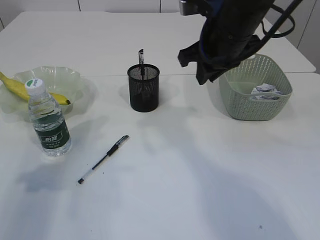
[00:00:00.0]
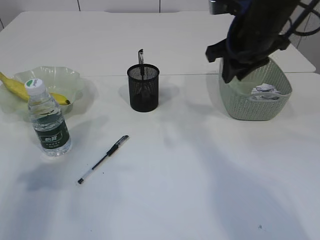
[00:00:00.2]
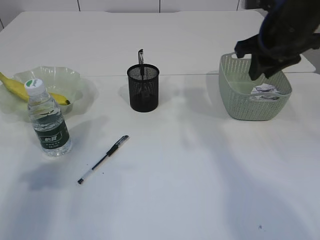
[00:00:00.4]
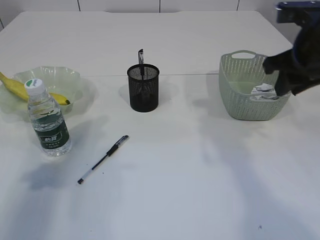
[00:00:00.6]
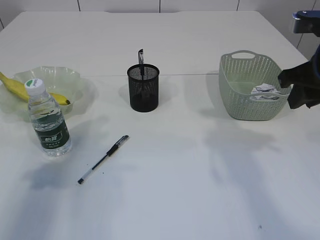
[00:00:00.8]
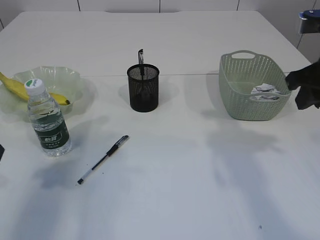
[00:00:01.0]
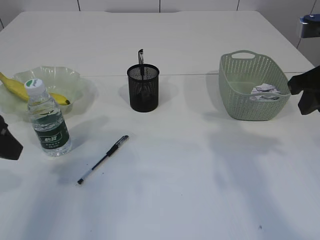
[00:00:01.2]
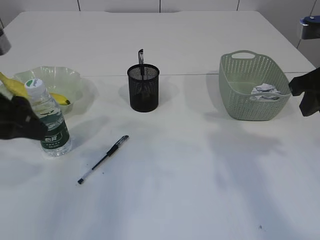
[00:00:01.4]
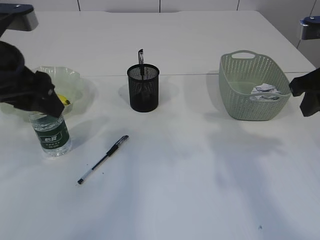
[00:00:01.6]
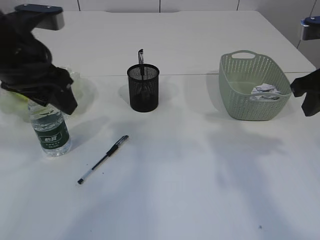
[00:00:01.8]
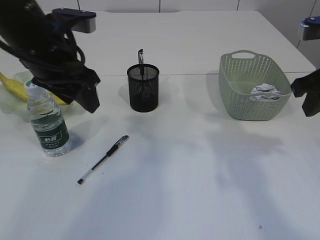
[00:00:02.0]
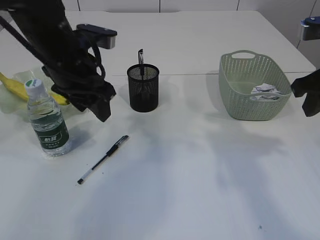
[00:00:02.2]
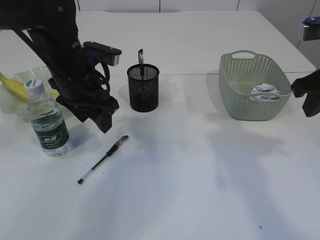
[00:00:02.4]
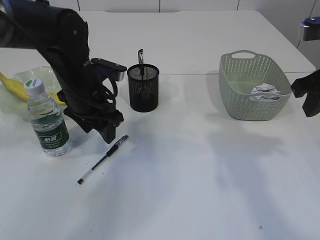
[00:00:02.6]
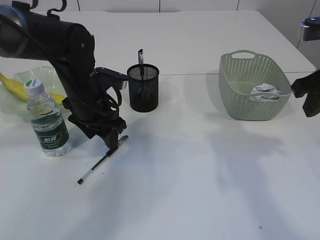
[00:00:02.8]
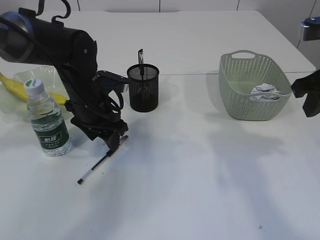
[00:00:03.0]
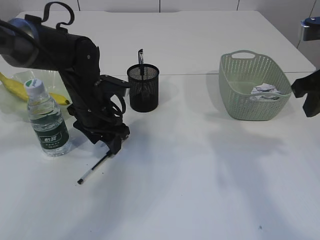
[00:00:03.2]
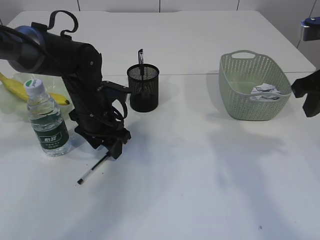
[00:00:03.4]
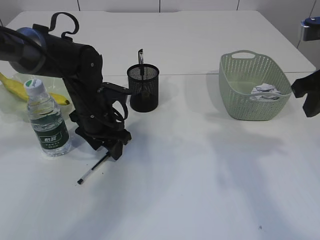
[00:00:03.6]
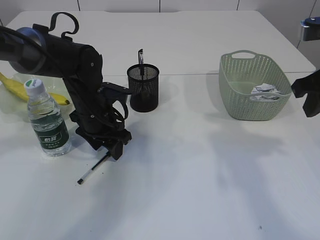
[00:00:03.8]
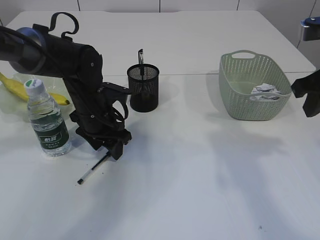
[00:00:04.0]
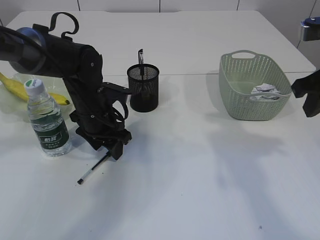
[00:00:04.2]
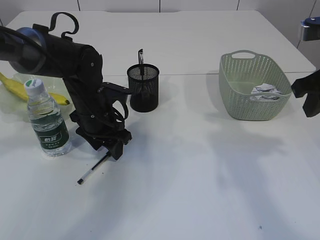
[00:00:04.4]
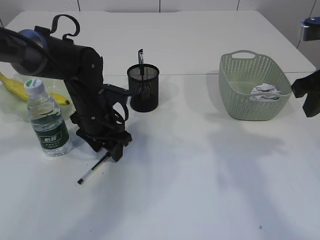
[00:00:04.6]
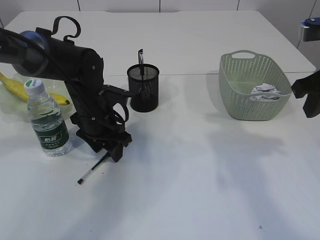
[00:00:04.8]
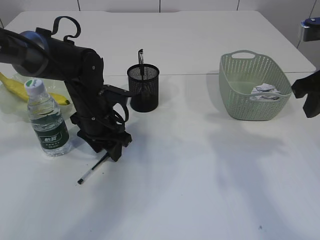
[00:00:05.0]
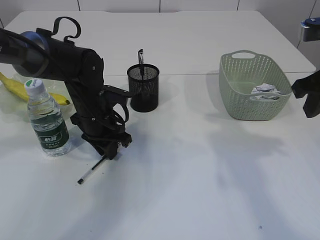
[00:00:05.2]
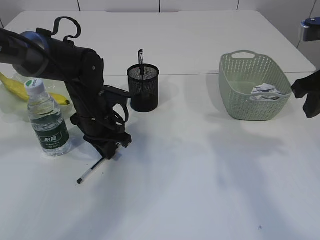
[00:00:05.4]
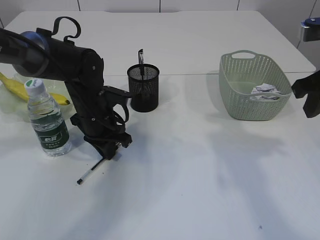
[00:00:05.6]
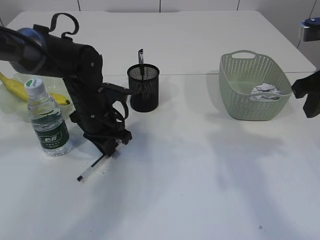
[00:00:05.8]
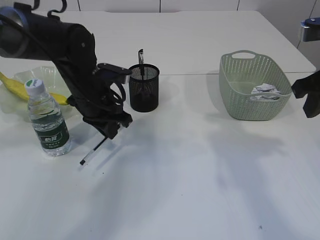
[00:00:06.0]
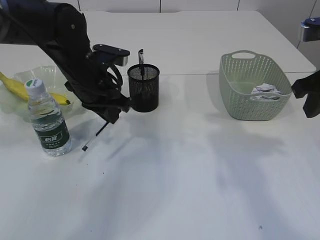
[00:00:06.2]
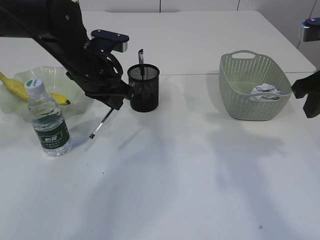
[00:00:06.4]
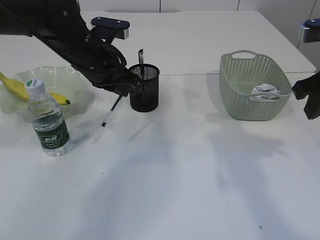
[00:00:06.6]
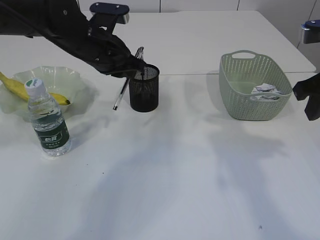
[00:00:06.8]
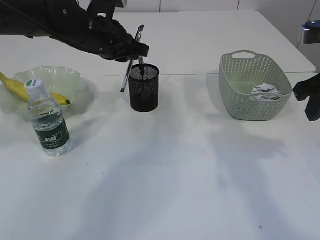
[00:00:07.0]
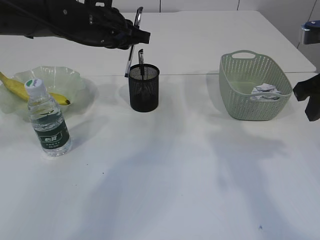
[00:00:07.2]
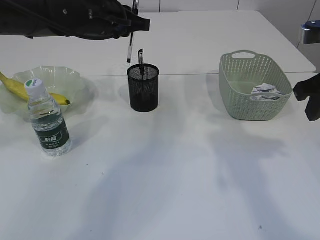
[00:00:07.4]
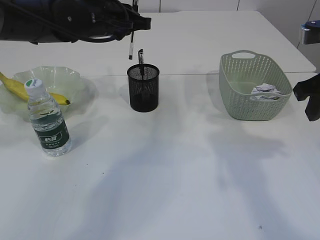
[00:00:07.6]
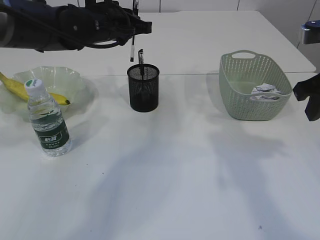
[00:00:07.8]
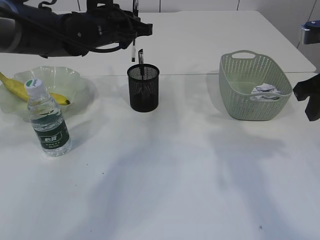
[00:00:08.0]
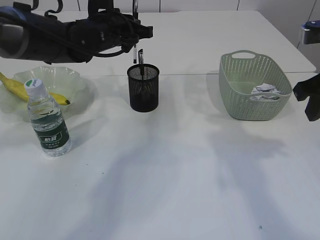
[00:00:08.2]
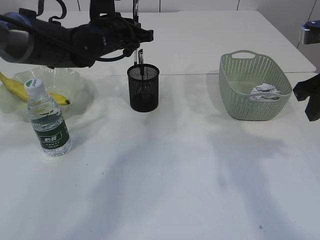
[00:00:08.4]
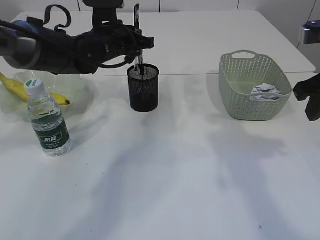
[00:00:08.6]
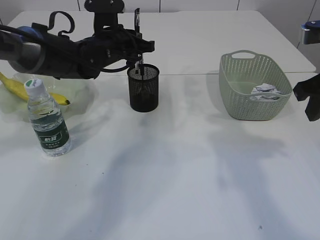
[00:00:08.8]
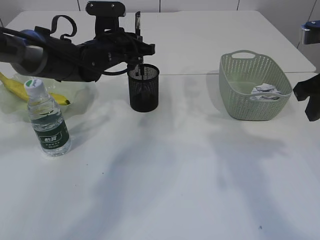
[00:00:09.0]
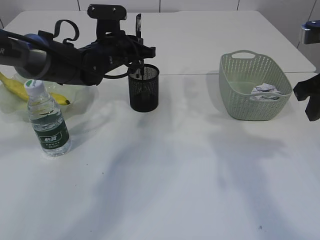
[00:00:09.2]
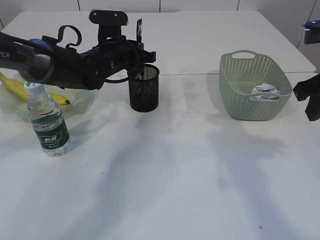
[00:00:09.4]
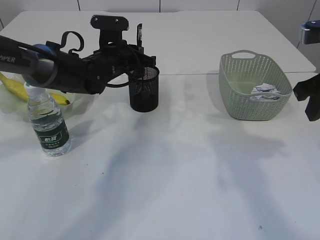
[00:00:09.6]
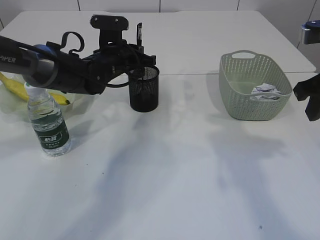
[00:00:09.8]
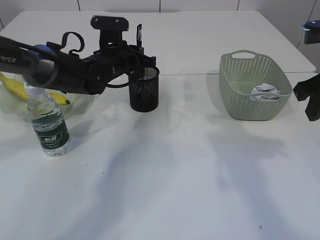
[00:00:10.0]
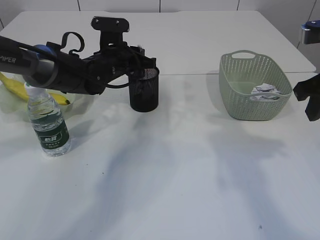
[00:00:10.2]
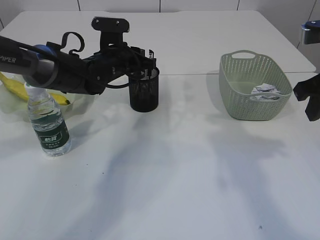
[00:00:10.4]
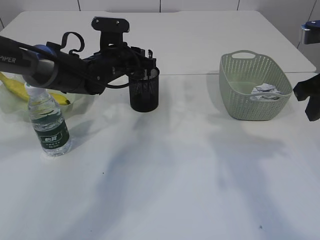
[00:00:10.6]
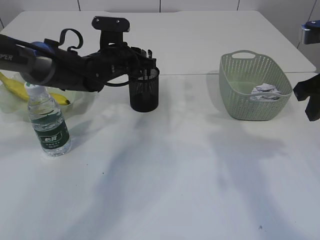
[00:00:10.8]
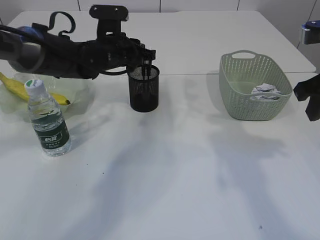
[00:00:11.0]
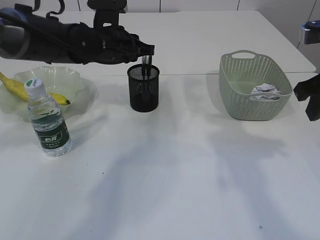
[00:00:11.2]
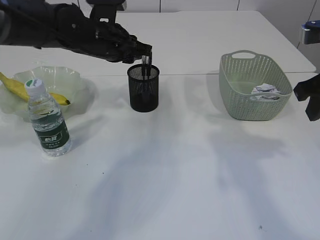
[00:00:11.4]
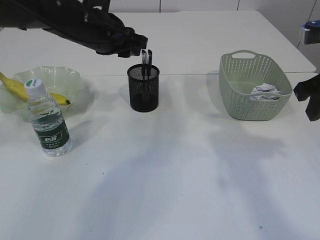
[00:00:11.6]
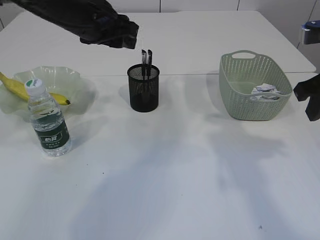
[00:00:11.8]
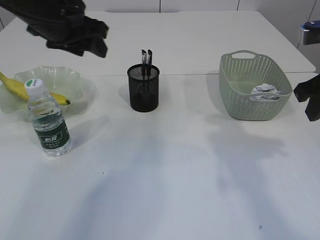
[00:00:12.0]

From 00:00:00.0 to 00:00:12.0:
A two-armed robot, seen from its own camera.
Step, from 00:00:00.0 to 00:00:06.4: Pick up the pen with left arm.
Step, from 00:00:06.6 to 00:00:11.6: Place the pen into the pen holder.
From 00:00:00.0 to 00:00:01.6: The left gripper moves to the right, about 10 cm. Meanwhile the right gripper goes roughly 15 cm to the right and backward.
From 00:00:01.6 to 00:00:03.0: The left gripper travels downward, forward and to the right by about 20 cm.
From 00:00:03.0 to 00:00:04.4: The grippers stay close to where they were, moving slightly.
From 00:00:04.4 to 00:00:06.0: The left gripper closes up.
From 00:00:06.0 to 00:00:07.6: The left gripper goes some 10 cm upward.
From 00:00:07.6 to 00:00:09.0: The left gripper moves downward, roughly 5 cm.
From 00:00:09.0 to 00:00:10.4: The grippers make only small movements.
From 00:00:10.4 to 00:00:12.0: The left gripper shifts approximately 15 cm upward, backward and to the left, and opens.

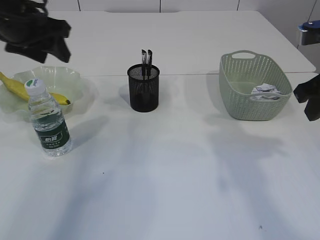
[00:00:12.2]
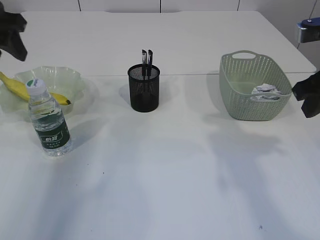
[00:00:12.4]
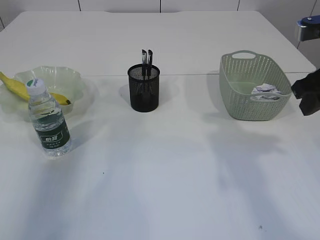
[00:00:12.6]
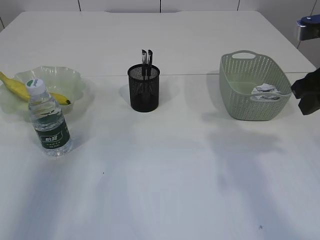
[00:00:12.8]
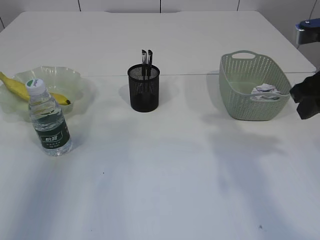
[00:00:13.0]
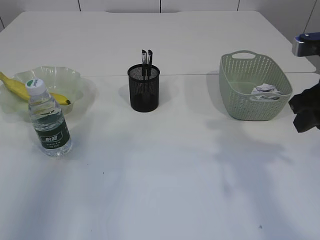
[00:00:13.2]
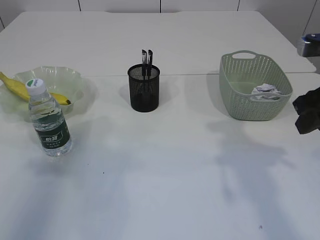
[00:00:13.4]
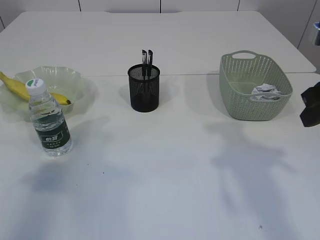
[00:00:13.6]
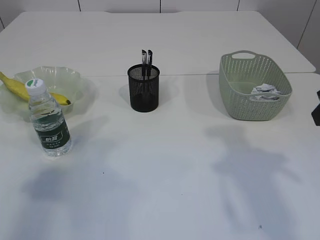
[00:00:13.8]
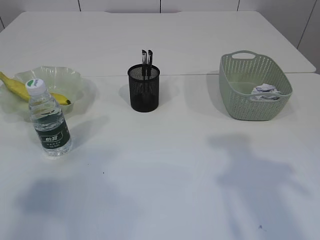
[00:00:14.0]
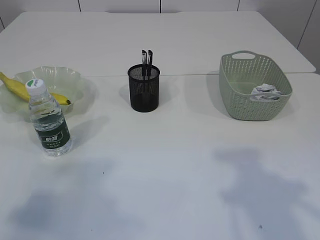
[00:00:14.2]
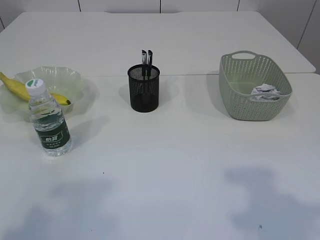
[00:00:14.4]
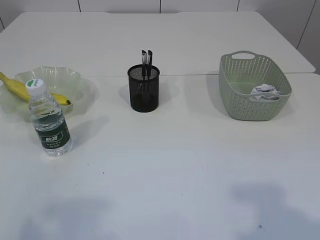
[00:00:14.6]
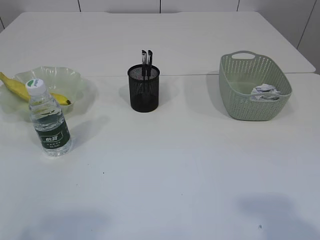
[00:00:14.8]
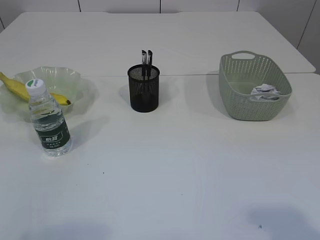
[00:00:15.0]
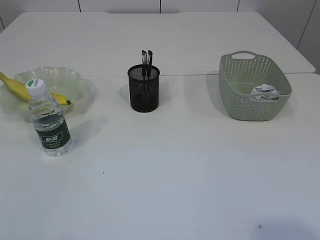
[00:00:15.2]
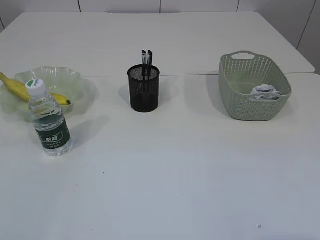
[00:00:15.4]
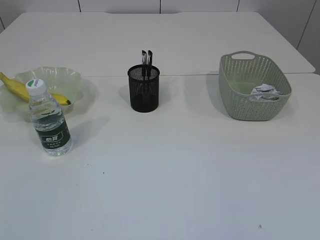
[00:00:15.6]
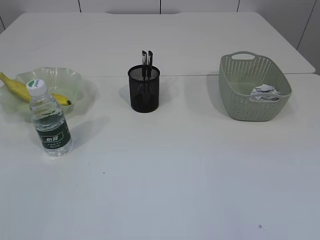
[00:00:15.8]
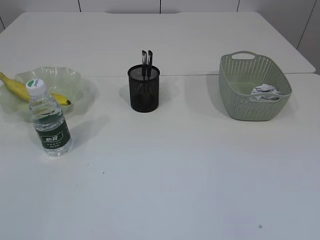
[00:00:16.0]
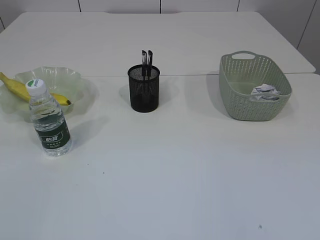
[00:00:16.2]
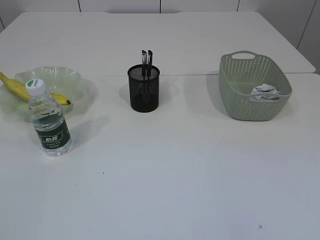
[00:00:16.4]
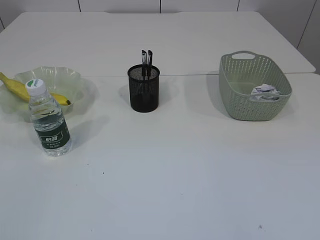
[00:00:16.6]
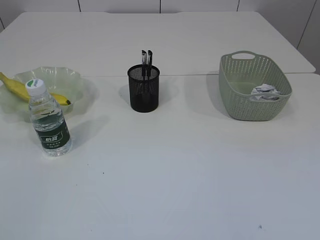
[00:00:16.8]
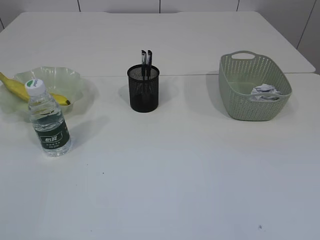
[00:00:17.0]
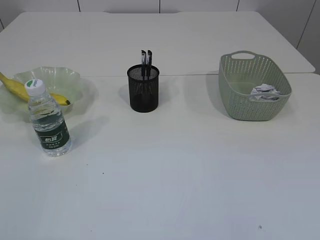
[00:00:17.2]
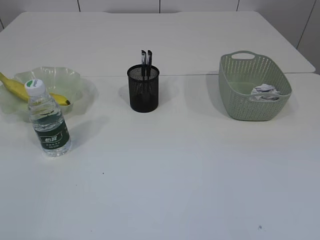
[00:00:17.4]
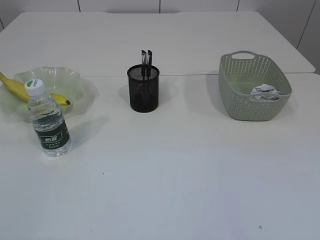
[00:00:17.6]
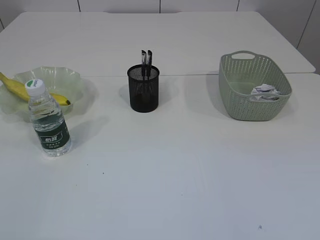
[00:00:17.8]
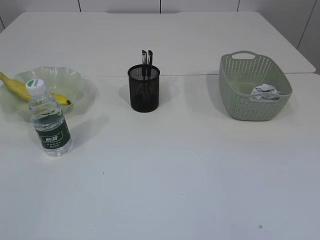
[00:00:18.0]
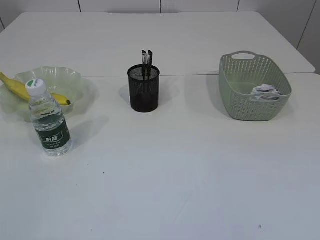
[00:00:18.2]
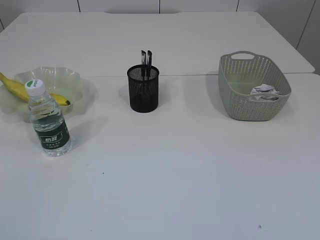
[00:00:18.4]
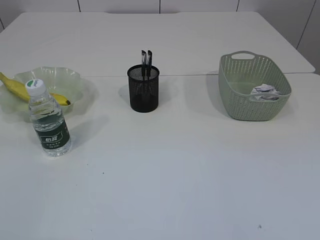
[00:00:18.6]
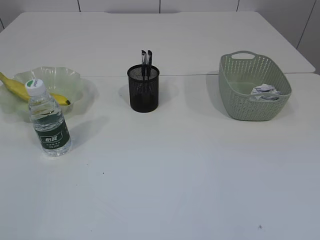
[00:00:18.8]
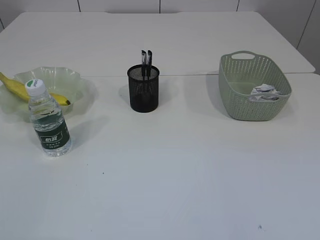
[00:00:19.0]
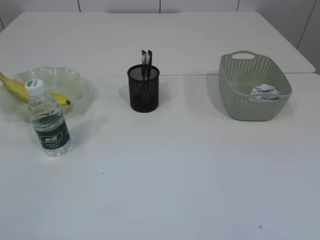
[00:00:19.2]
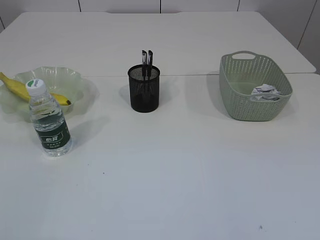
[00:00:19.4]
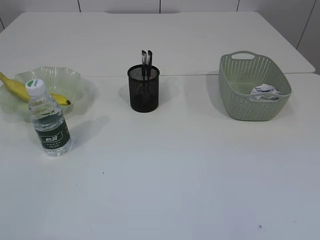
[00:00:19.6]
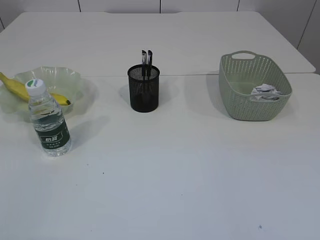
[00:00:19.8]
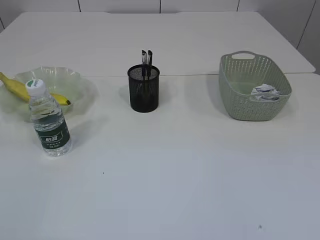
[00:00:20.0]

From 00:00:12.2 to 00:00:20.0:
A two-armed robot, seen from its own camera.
From 00:00:12.2 to 00:00:13.8: The right gripper heads backward, covering approximately 5 cm. Meanwhile the left gripper travels backward and to the left by some 25 cm.
From 00:00:13.8 to 00:00:15.4: The left gripper travels backward by about 20 cm.
From 00:00:18.4 to 00:00:20.0: Both grippers stay about where they are.
